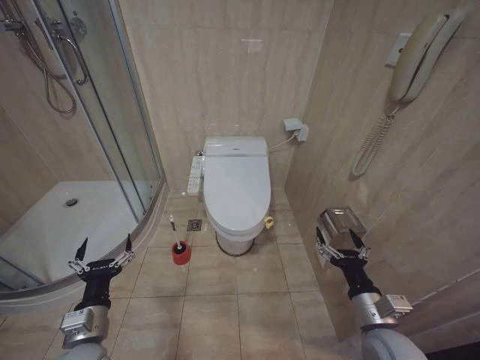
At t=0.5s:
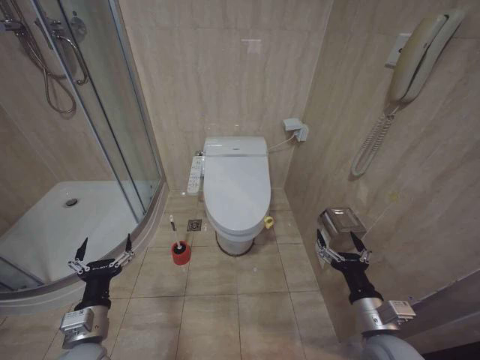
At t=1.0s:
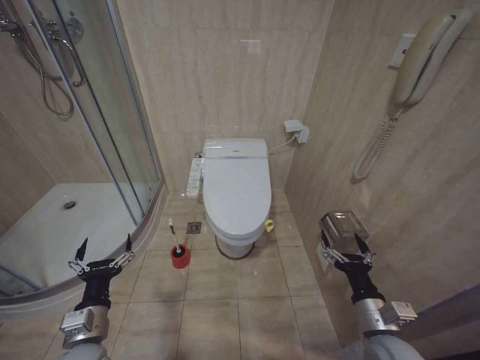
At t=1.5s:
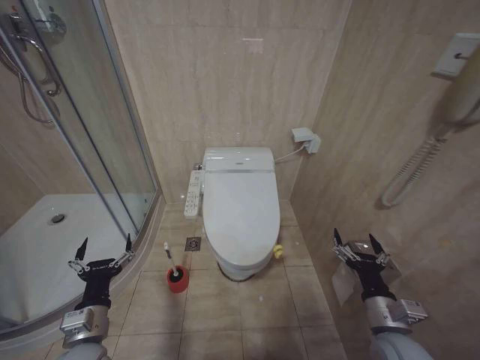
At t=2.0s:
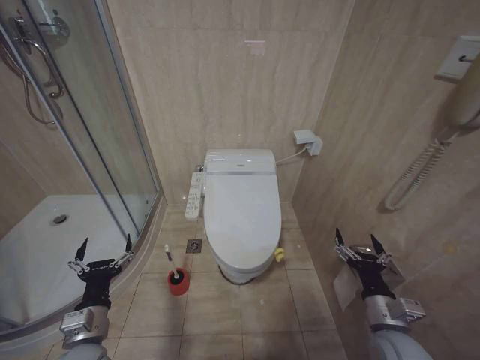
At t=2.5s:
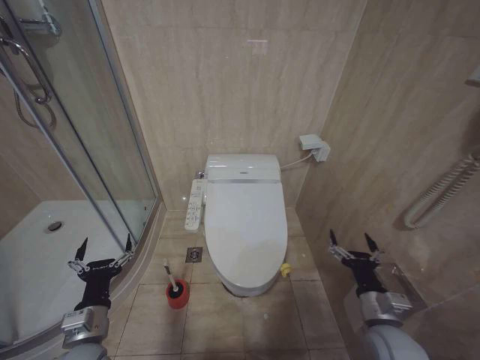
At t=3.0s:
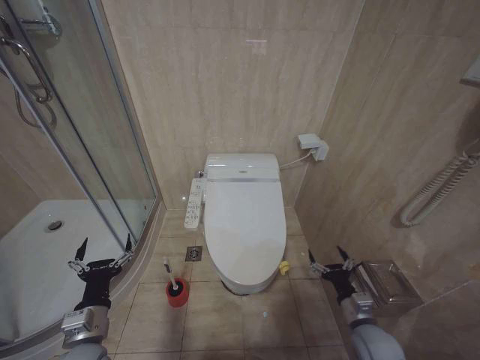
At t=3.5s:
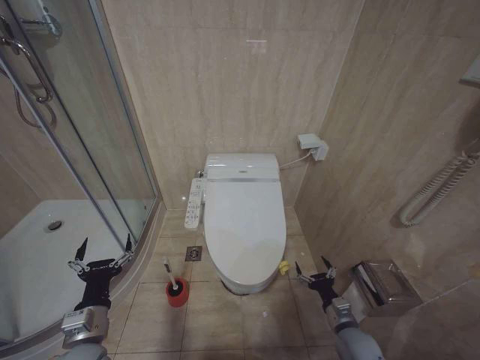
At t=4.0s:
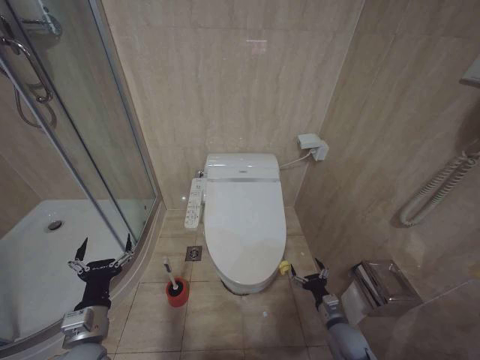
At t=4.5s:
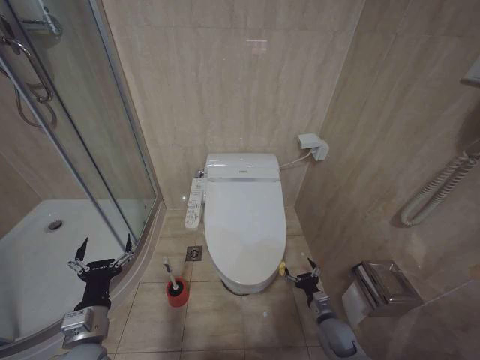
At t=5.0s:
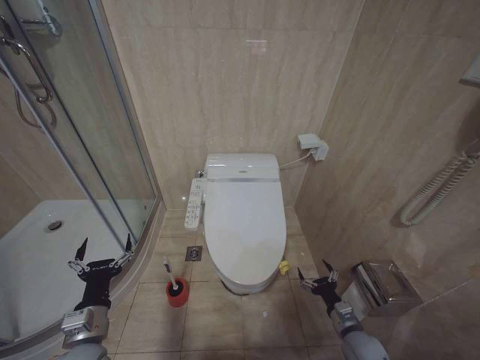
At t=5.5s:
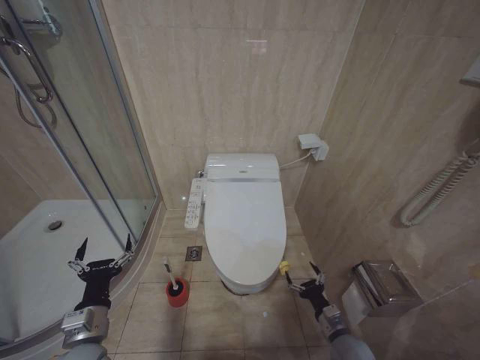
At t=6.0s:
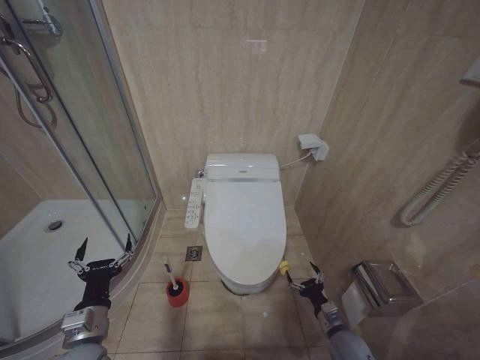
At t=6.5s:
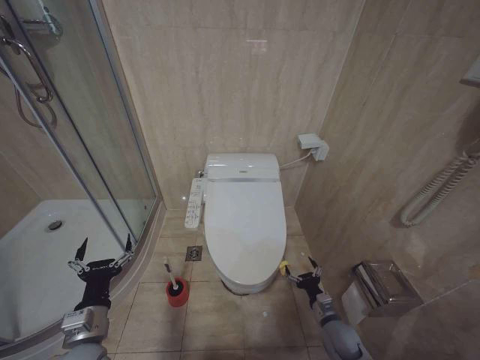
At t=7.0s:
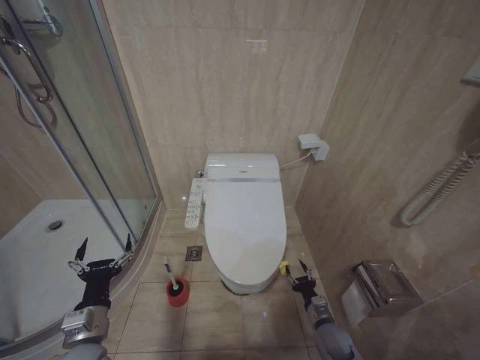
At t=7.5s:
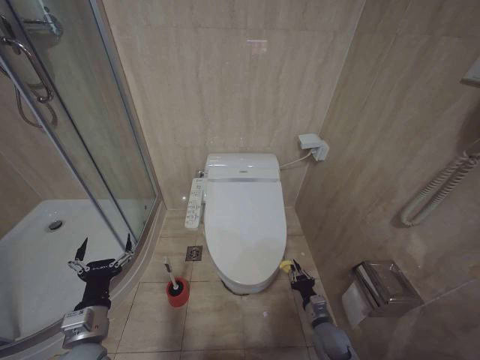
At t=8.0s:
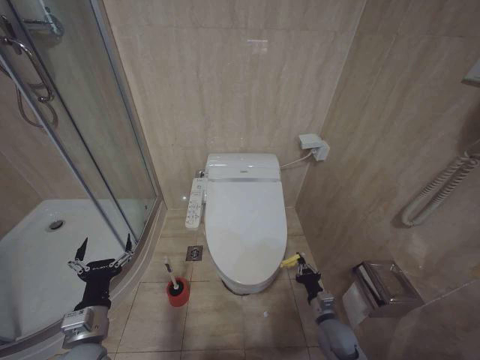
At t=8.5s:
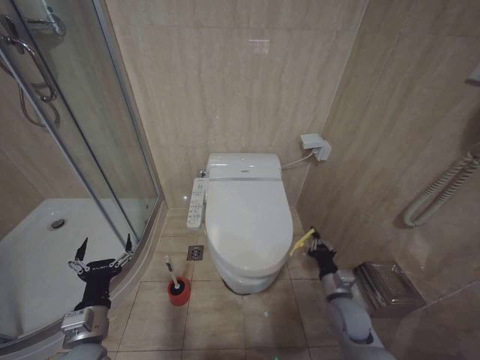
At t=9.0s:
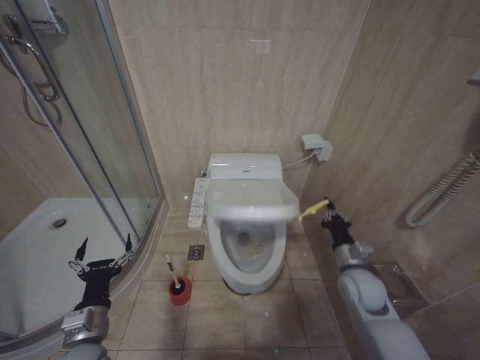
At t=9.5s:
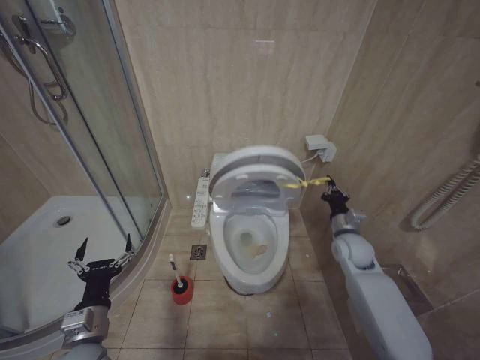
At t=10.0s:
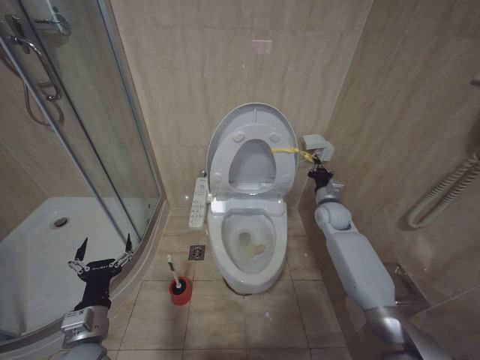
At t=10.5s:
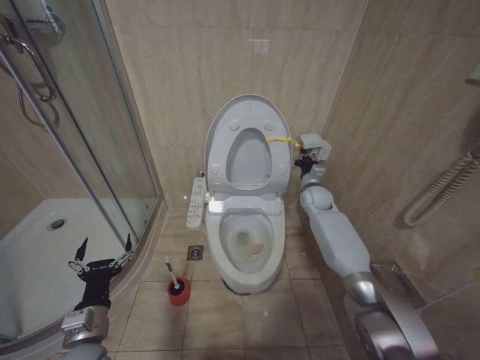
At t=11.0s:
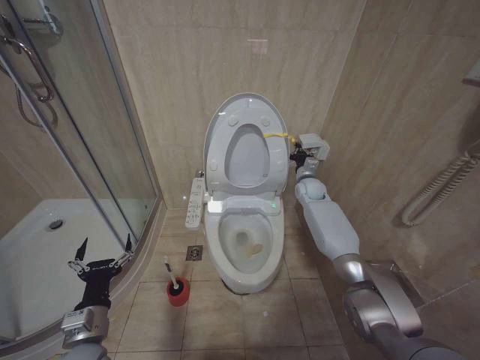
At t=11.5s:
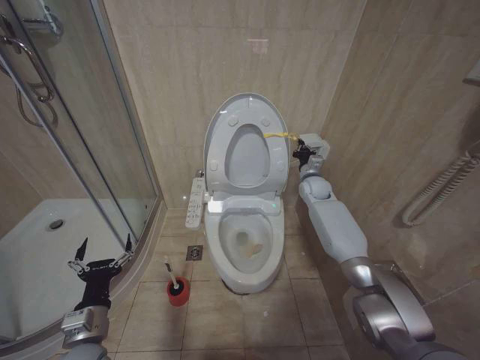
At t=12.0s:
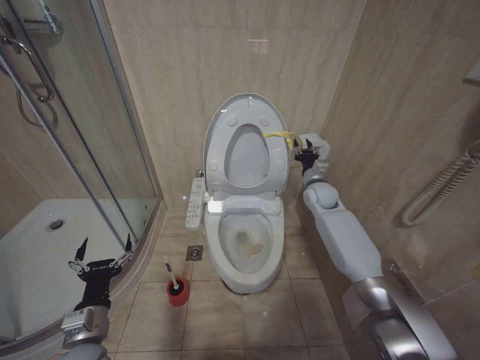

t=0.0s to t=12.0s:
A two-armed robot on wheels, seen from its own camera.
Task of the whole recording: Open the toilet lid, clean the toilet bowl with a toilet brush, close the toilet lid, and flush.
t=2.0s to t=4.0s: The right gripper goes about 15 cm downward.
t=6.0s to t=8.0s: The right gripper closes its fingers.
t=8.0s to t=10.0s: The right gripper heads upward and forward, covering approximately 35 cm.
t=10.0s to t=12.0s: The right gripper goes some 10 cm forward and upward.

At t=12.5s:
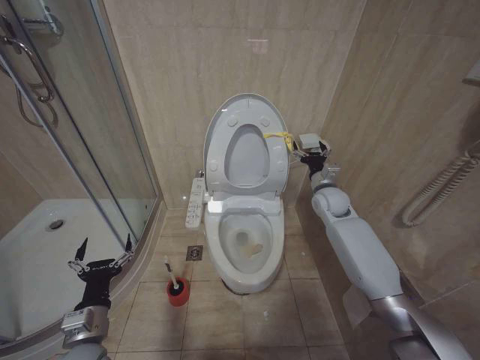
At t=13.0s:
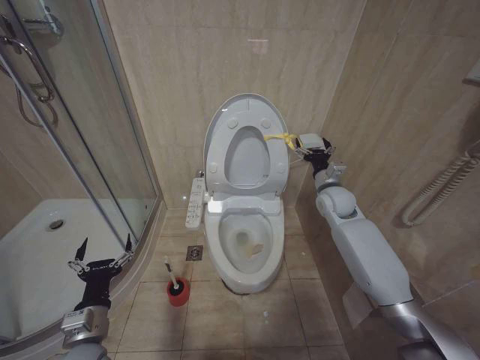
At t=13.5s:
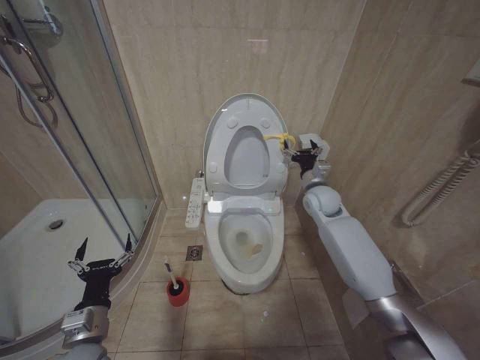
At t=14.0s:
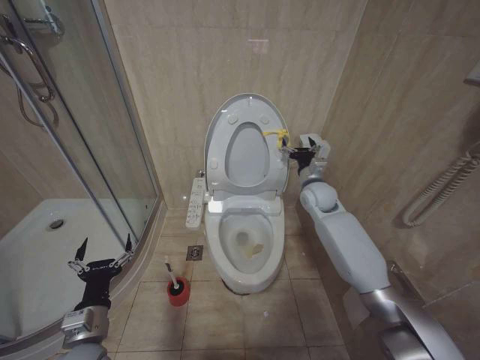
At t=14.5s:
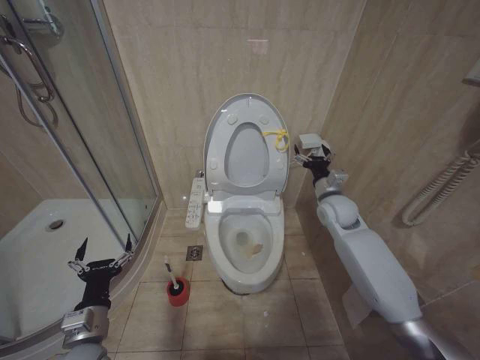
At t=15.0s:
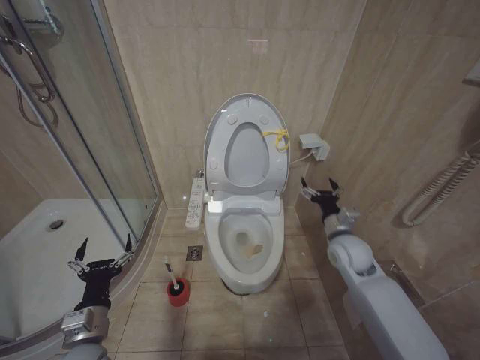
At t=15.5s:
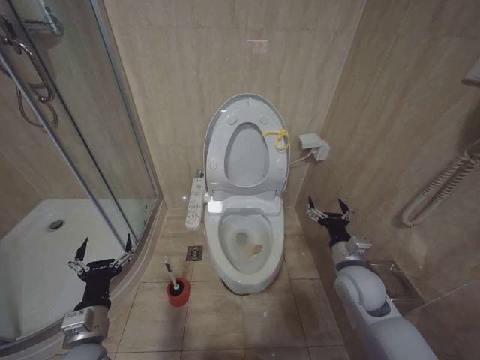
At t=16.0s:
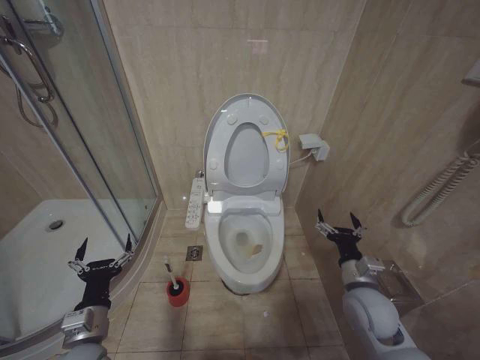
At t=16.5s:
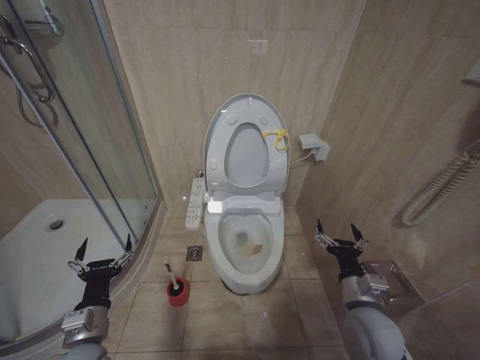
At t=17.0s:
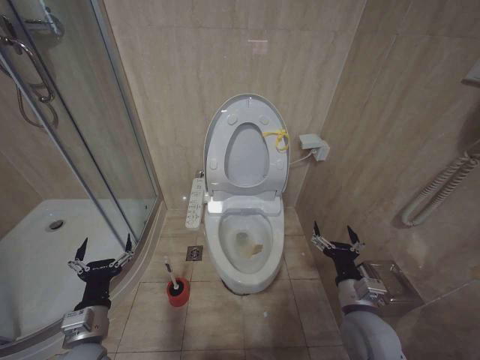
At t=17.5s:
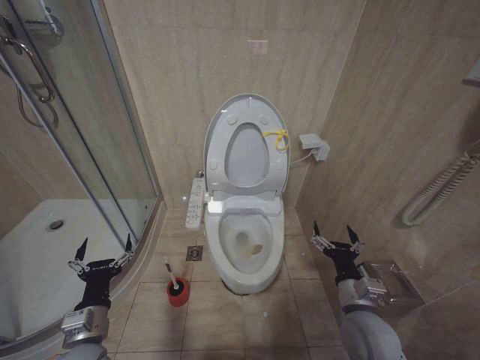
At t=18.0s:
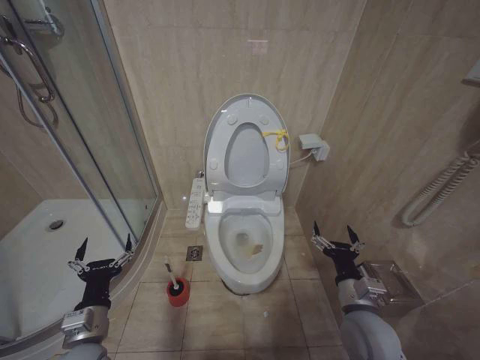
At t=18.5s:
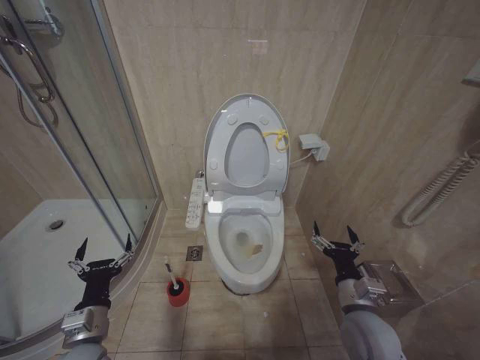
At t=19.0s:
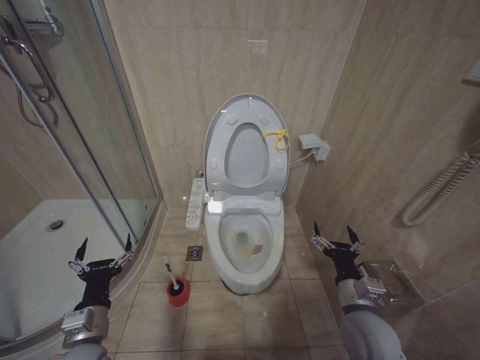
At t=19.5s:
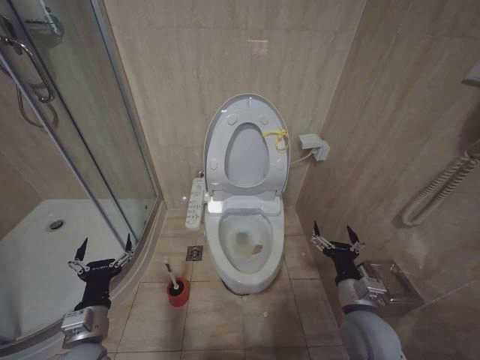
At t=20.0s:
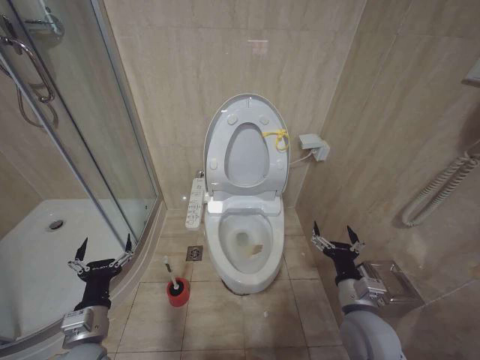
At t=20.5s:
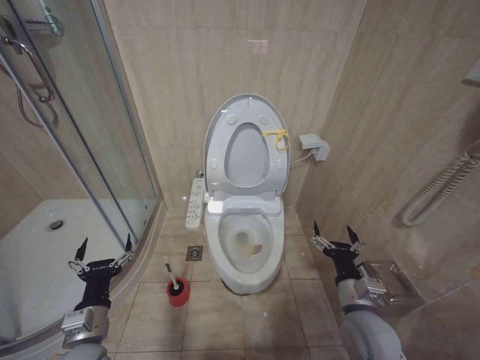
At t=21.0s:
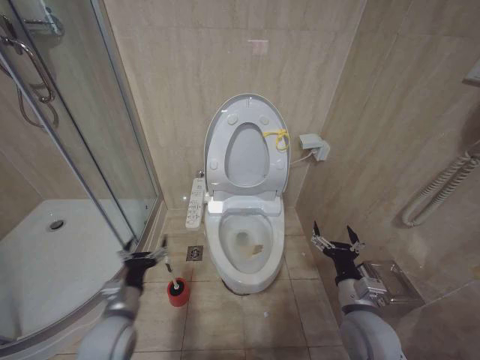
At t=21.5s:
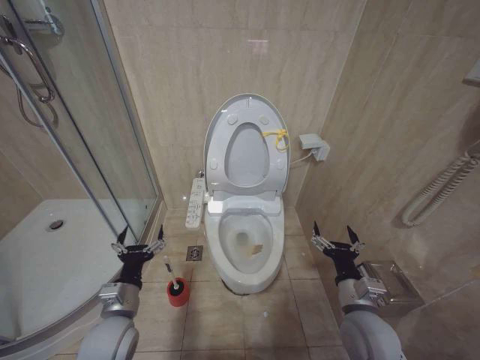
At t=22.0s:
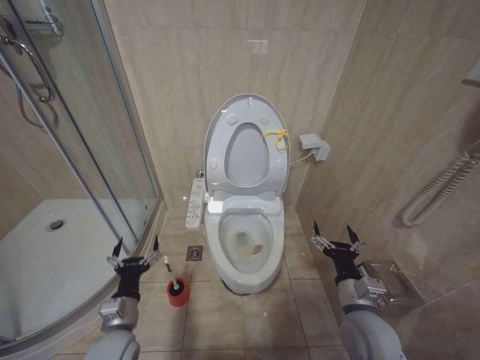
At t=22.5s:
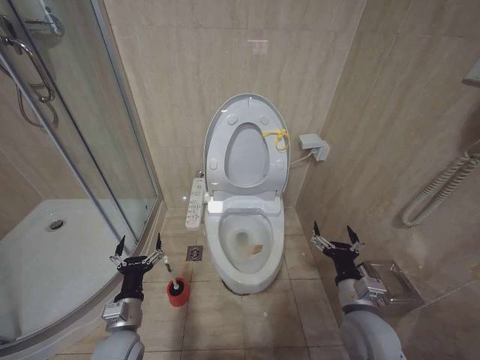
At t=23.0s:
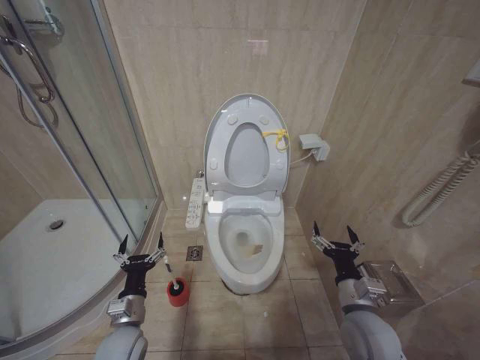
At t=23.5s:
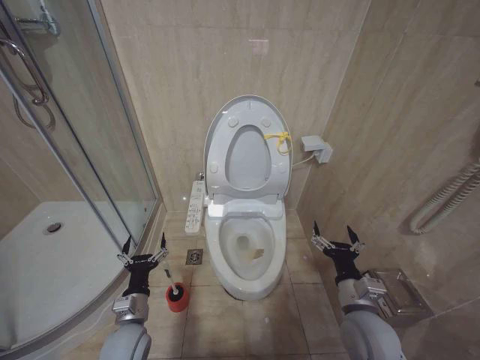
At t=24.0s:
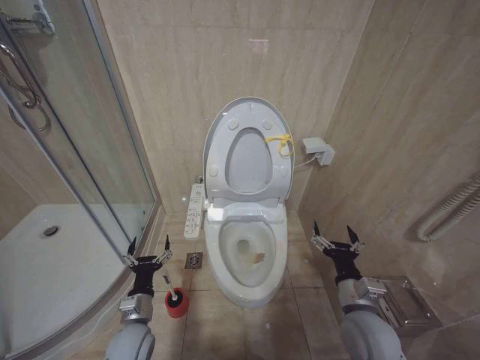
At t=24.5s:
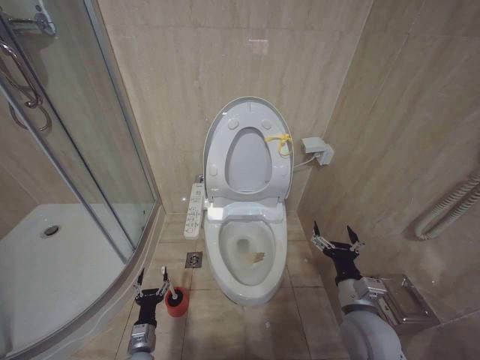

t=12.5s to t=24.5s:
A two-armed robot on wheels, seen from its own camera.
Task of the whole recording: Open the toilet lid, clean the toilet bowl with a toilet brush, close the toilet lid, and flush.
t=12.5s to t=14.5s: There are only small adjustments of the grippers.
t=14.5s to t=16.5s: The right gripper goes roughly 30 cm backward and downward.
t=18.5s to t=20.5s: The two grippers keep their place.
t=20.5s to t=22.5s: The left gripper travels downward by approximately 5 cm.
t=22.5s to t=24.5s: The left gripper is displaced downward by about 15 cm.

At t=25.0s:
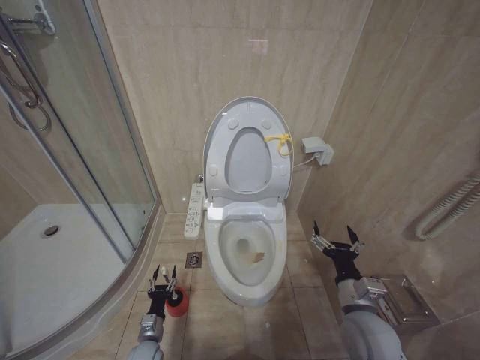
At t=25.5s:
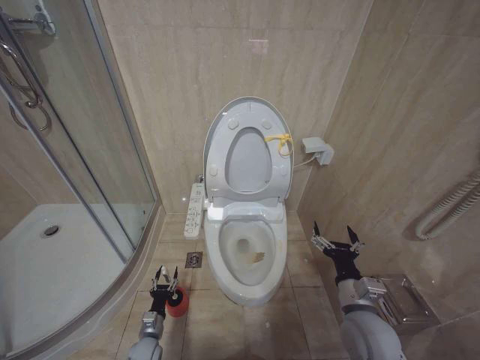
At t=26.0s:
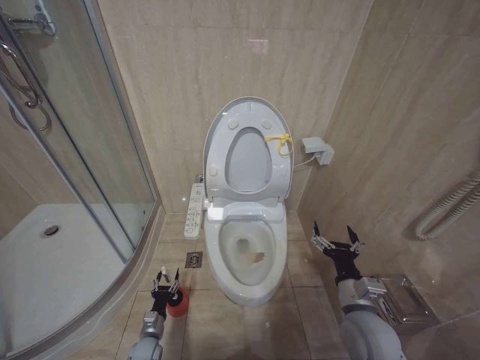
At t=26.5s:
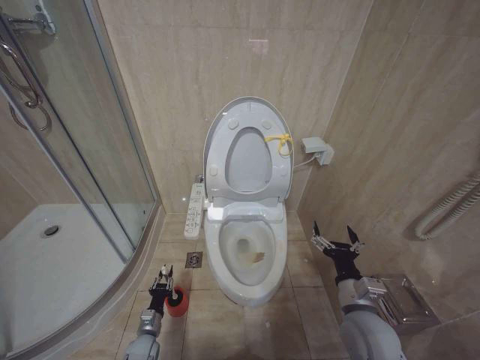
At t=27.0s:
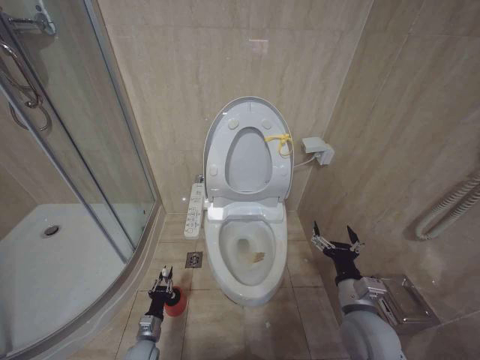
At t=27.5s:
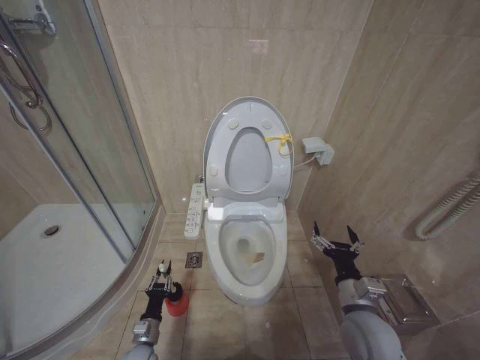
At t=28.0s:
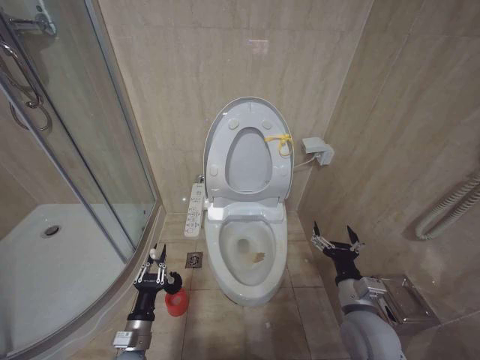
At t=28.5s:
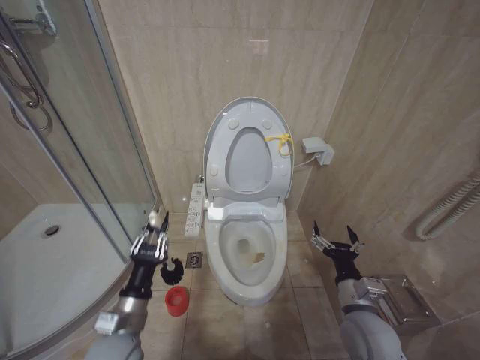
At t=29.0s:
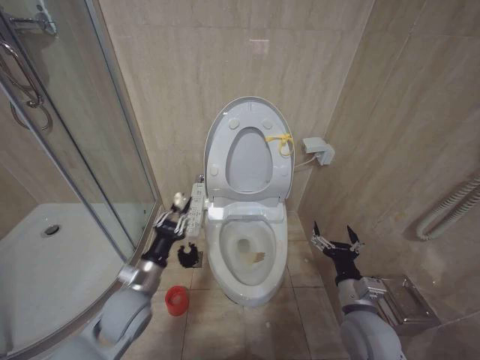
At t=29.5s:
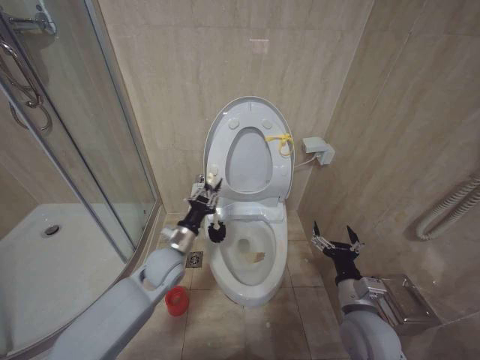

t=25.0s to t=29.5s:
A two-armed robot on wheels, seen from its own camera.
Task of the whole recording: Open the toilet lid, clean the toilet bowl with a toilet brush, close the toilet lid, and flush.
t=27.0s to t=29.5s: The left gripper is displaced upward by about 35 cm.
